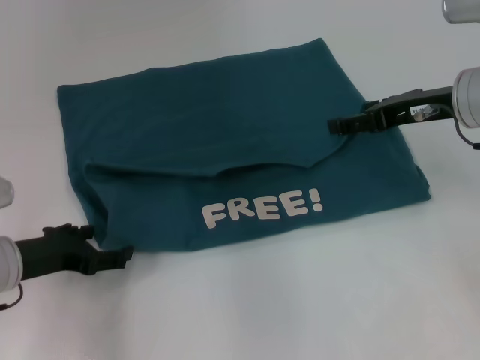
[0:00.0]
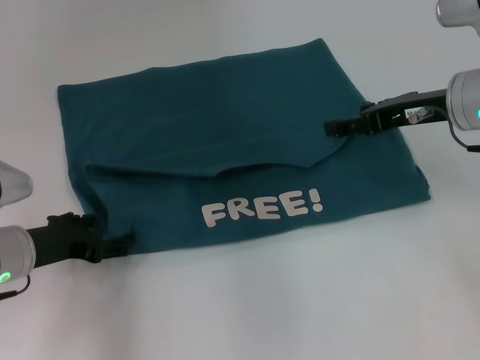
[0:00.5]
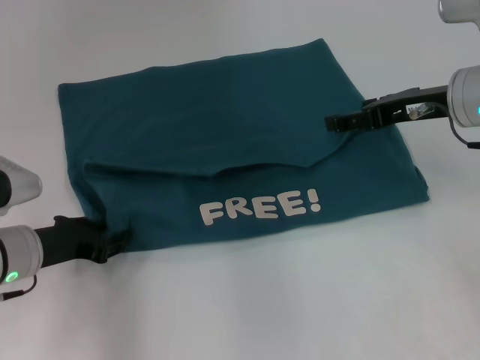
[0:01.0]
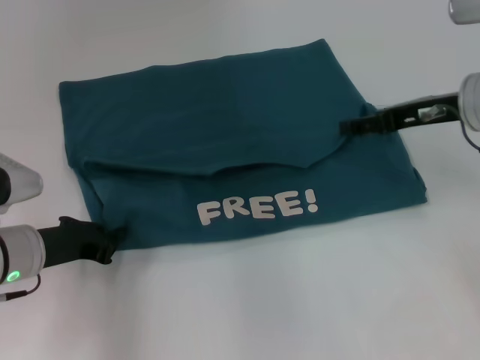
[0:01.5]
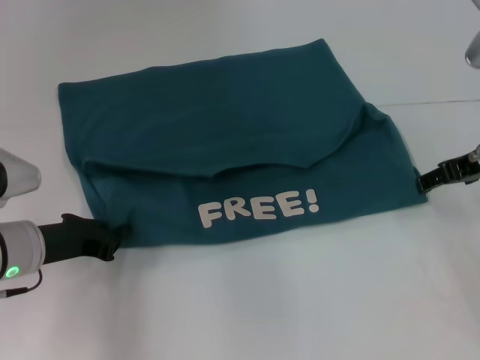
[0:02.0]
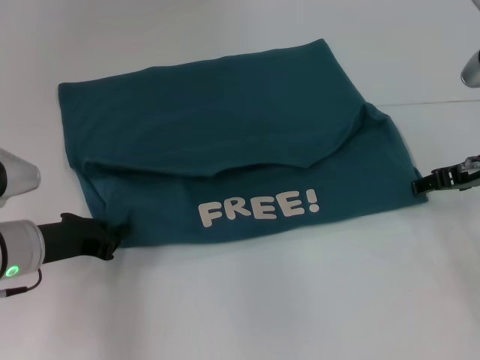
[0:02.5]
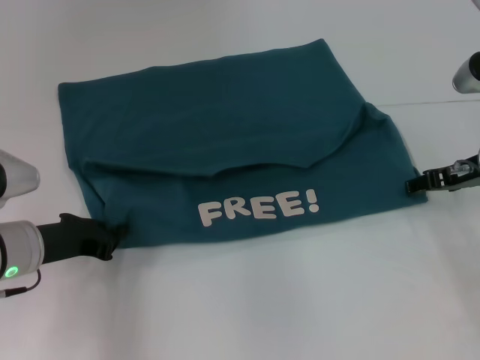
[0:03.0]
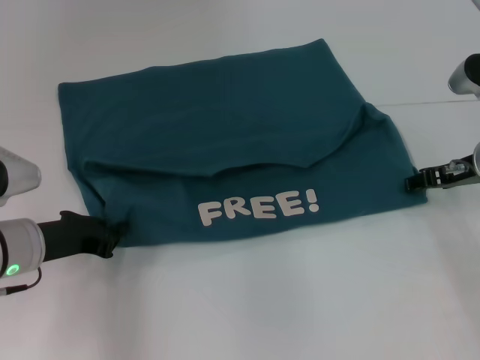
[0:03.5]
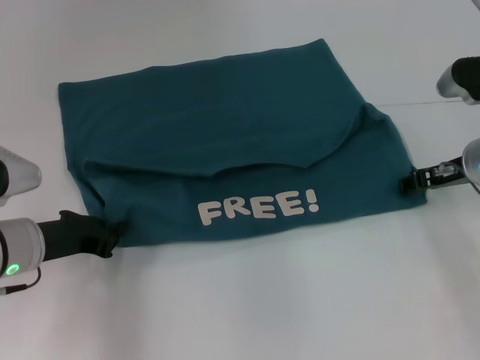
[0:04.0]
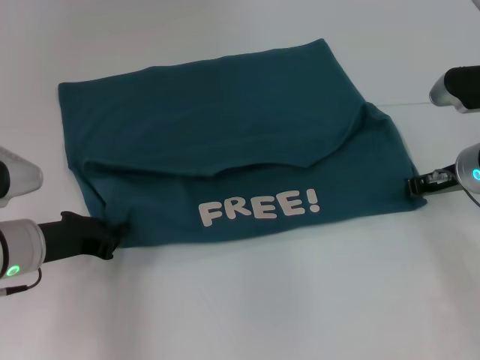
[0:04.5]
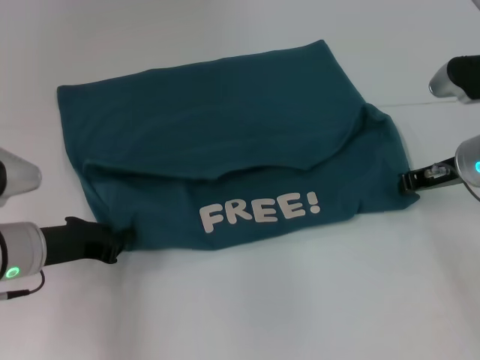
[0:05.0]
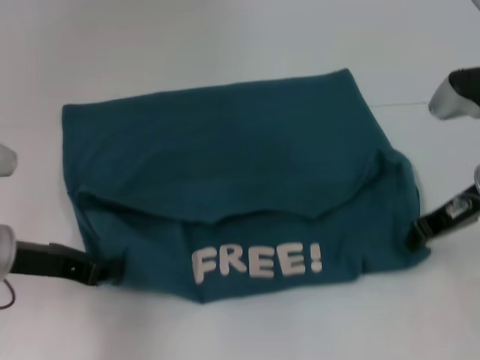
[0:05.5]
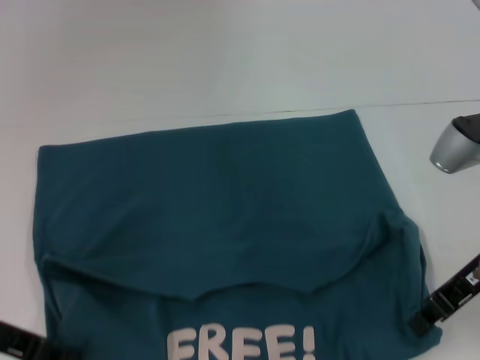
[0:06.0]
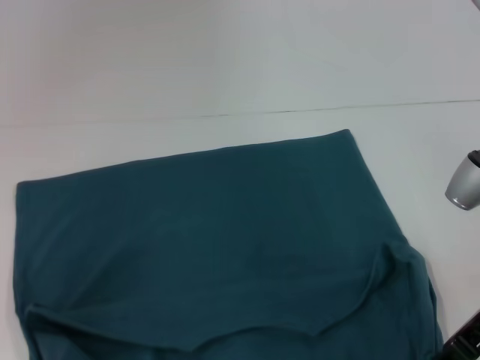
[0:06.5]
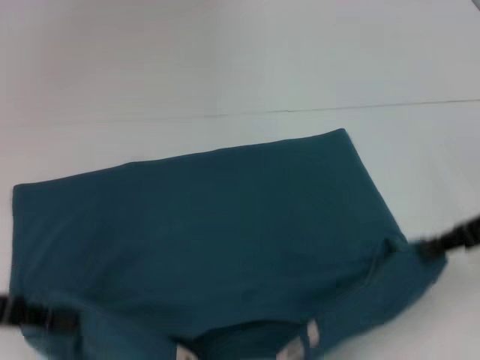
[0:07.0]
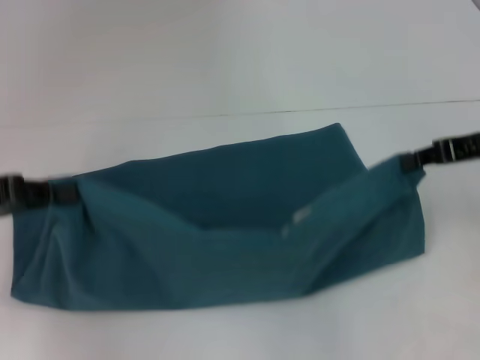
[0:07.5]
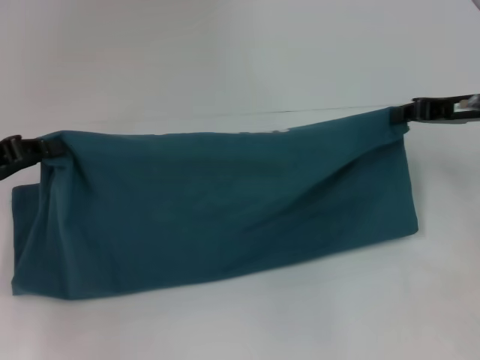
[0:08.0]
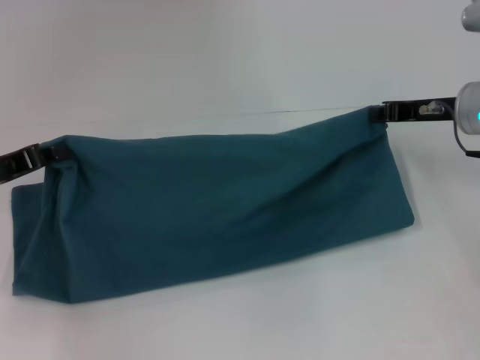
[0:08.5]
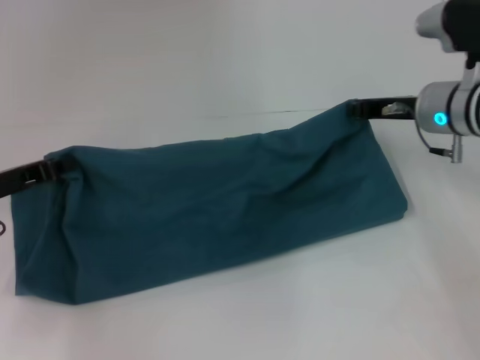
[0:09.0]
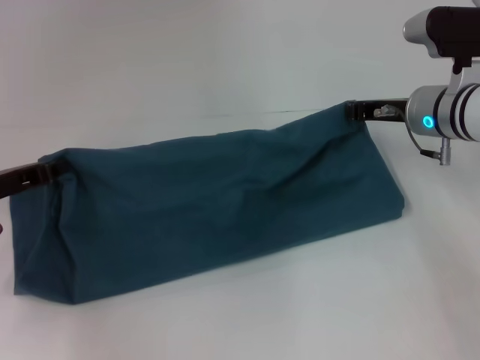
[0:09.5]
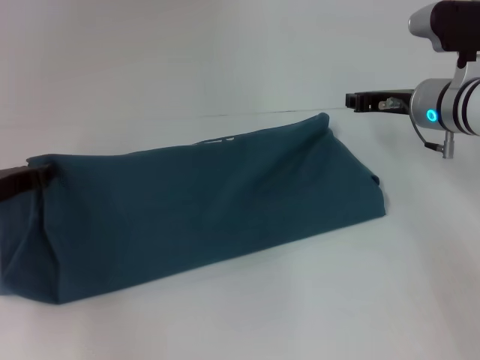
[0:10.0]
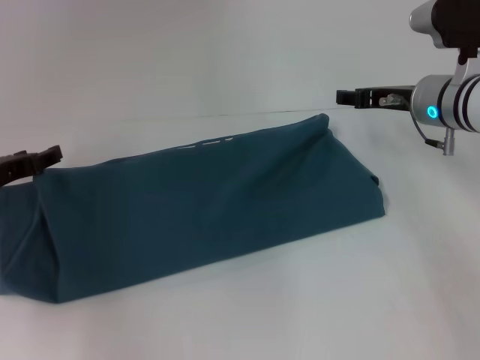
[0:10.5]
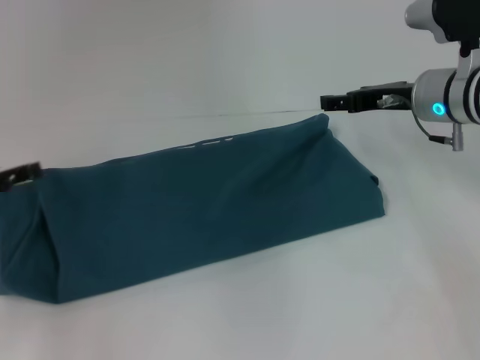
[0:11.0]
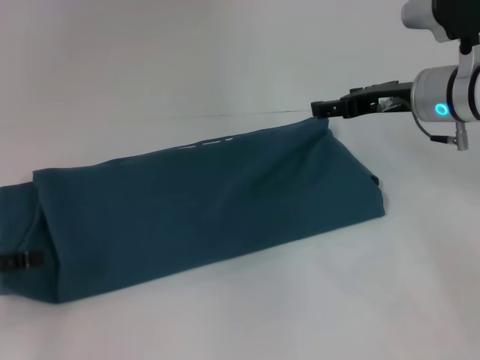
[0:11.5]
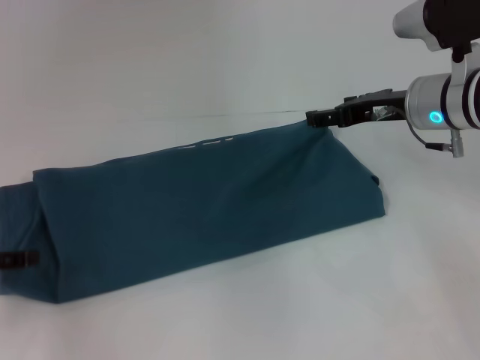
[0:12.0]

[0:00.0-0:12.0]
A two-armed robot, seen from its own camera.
Step, 0:00.0 to 0:06.5: Pull the clothes with your left hand.
Step, 0:00.0 to 0:06.5: Pull the clothes with your right hand.
Step, 0:07.0 to 0:10.5: Fold the clothes to the left.
Step, 0:07.0 to 0:10.5: Fold the clothes to the right.
0:00.0 to 0:02.0: The left gripper closes its fingers.
0:02.0 to 0:04.0: The right gripper travels downward by approximately 5 cm.
0:04.0 to 0:06.0: The left gripper goes approximately 5 cm upward and backward; the right gripper moves backward, approximately 10 cm, and closes up.
0:06.0 to 0:08.0: Both grippers travel together forward, approximately 5 cm.
0:08.0 to 0:10.0: The left gripper shifts roughly 5 cm downward. Meanwhile the right gripper moves to the left, approximately 5 cm.
0:10.0 to 0:12.0: The left gripper shifts some 10 cm backward and to the left, and opens up. The right gripper opens.

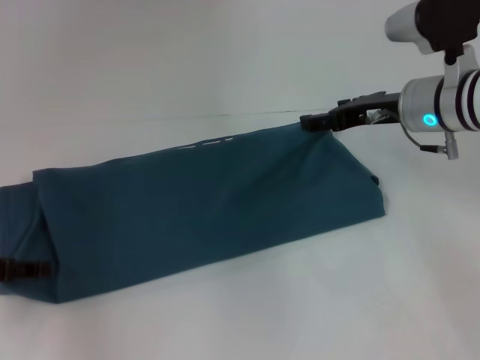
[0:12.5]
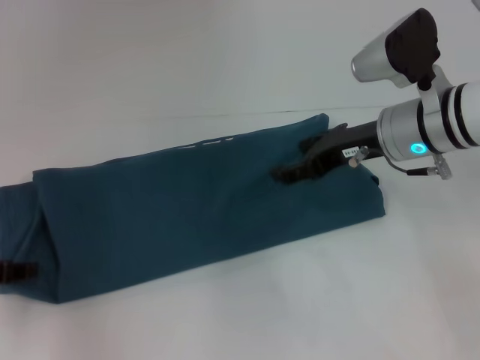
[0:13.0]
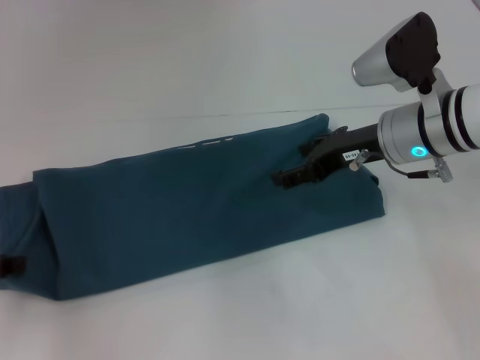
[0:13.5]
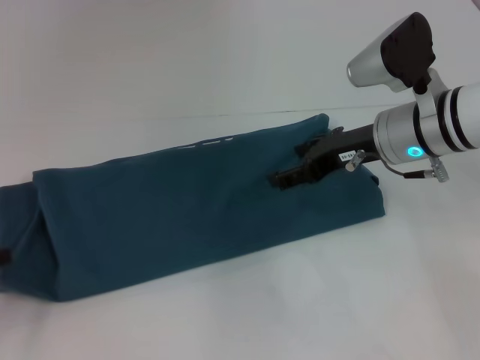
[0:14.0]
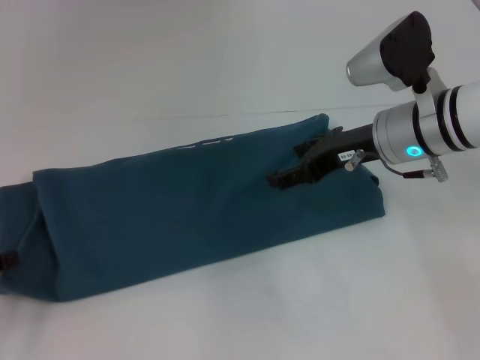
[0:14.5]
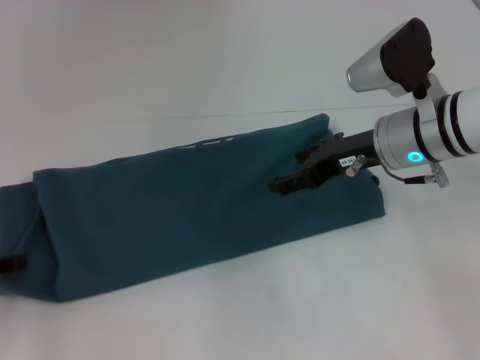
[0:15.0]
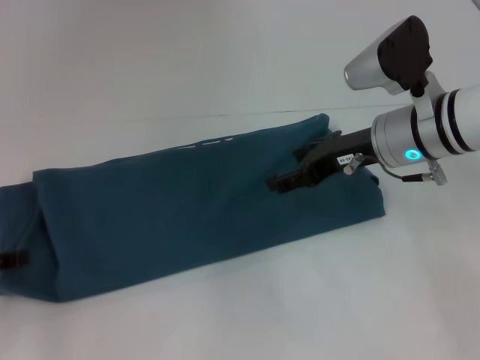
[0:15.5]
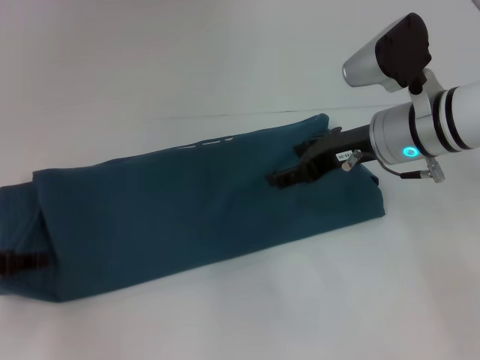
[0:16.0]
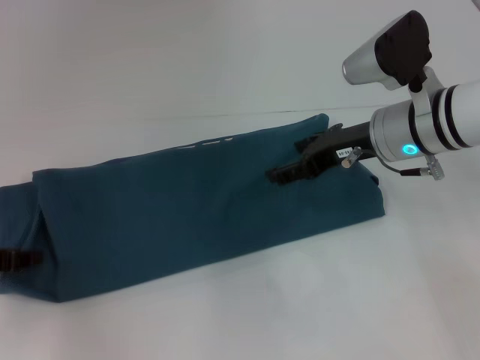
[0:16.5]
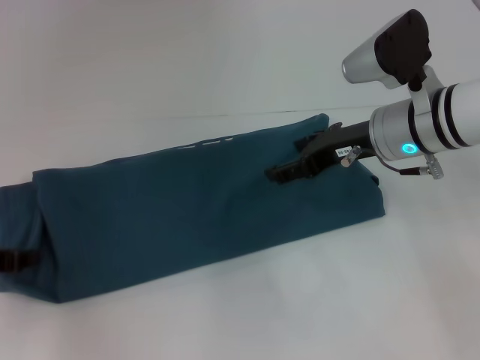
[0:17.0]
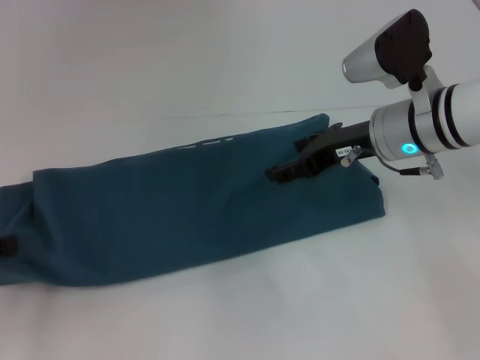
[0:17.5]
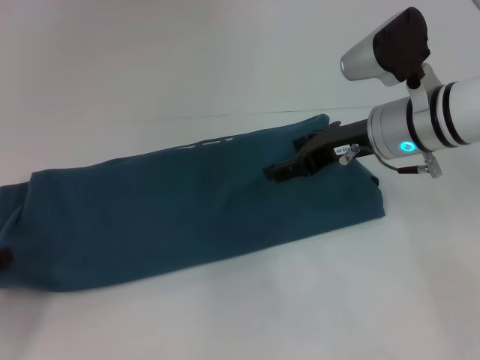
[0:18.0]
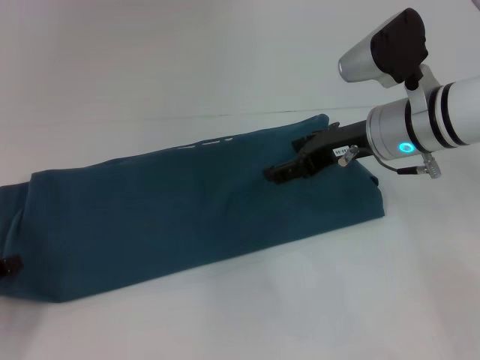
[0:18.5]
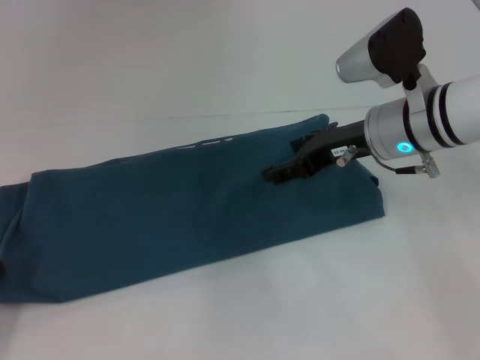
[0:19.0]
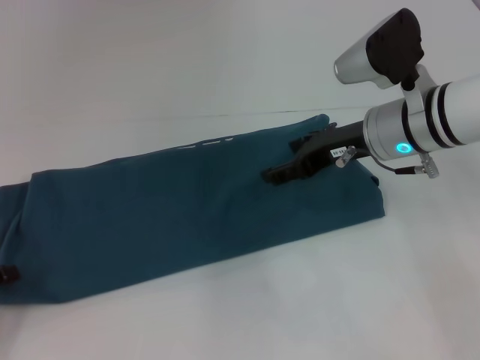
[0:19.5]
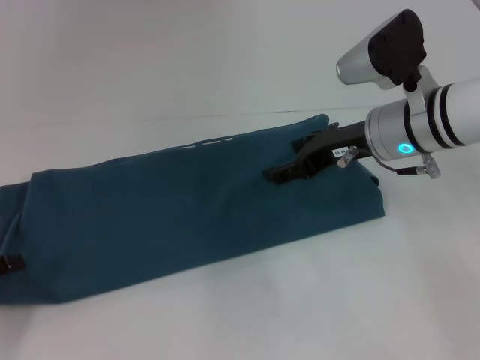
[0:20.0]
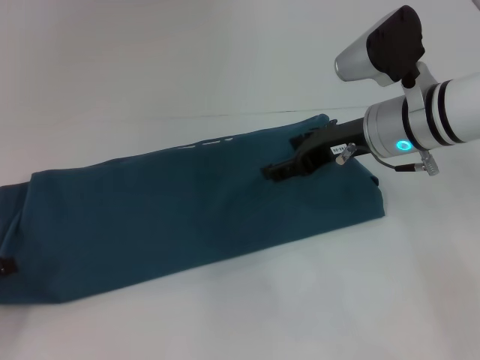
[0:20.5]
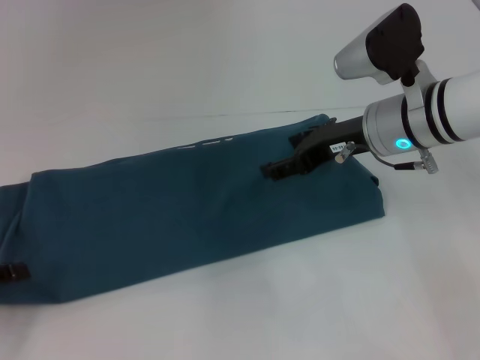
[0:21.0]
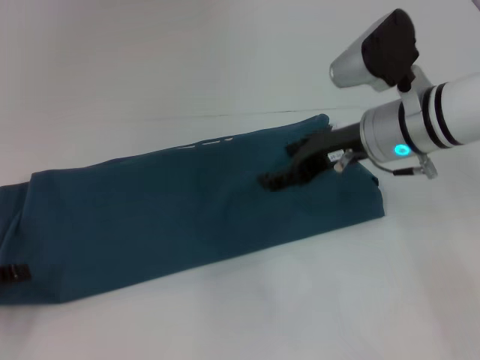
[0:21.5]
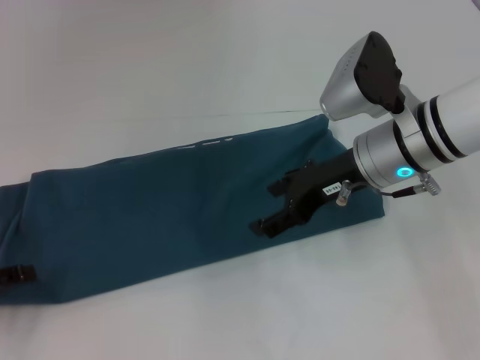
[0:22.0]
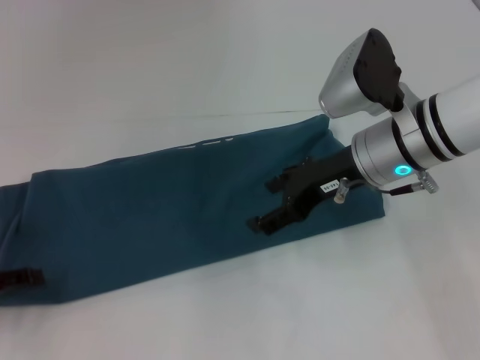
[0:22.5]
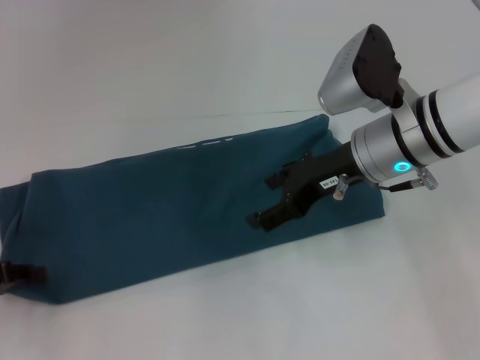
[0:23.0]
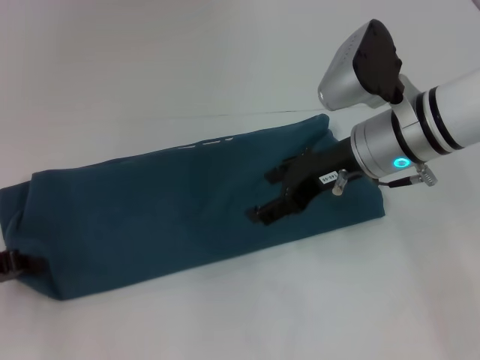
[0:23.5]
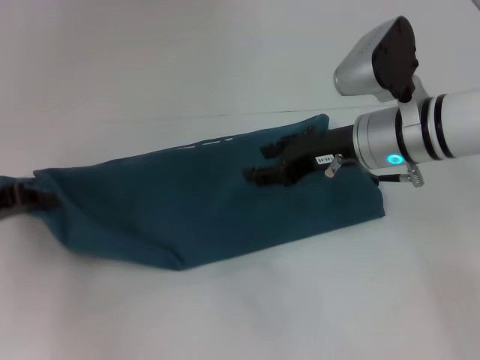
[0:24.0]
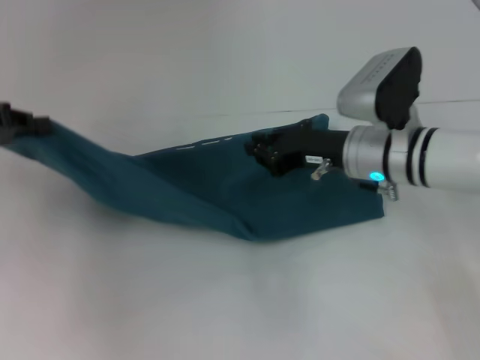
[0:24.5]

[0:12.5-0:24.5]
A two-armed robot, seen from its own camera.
0:12.5 to 0:14.5: The left gripper closes up.
0:16.5 to 0:18.5: The left gripper is displaced backward by about 5 cm, and closes up.
0:20.5 to 0:22.5: The grippers make only small movements.
0:22.5 to 0:24.5: The left gripper goes approximately 15 cm upward and forward, and closes up; the right gripper heads downward, covering approximately 5 cm, and closes up.

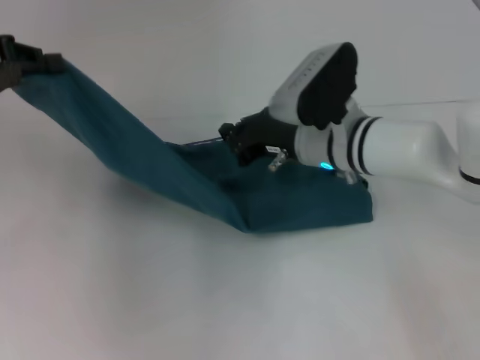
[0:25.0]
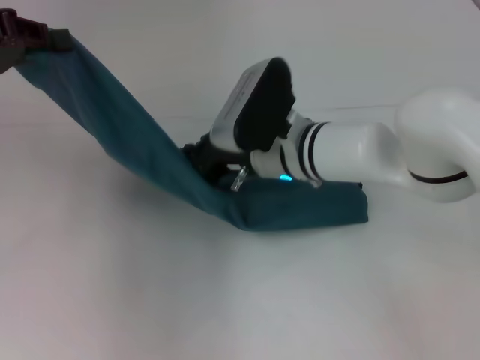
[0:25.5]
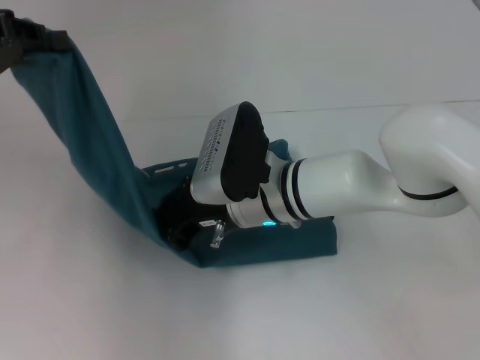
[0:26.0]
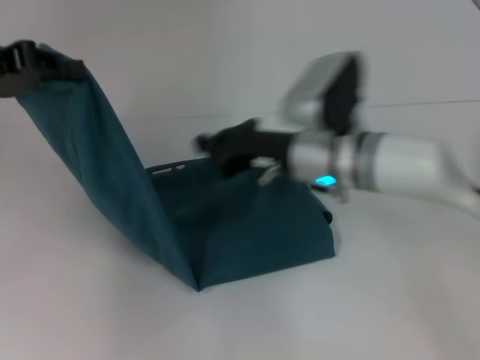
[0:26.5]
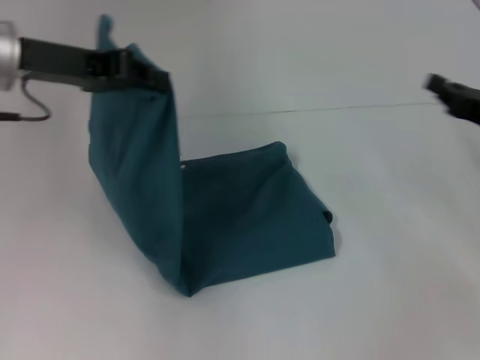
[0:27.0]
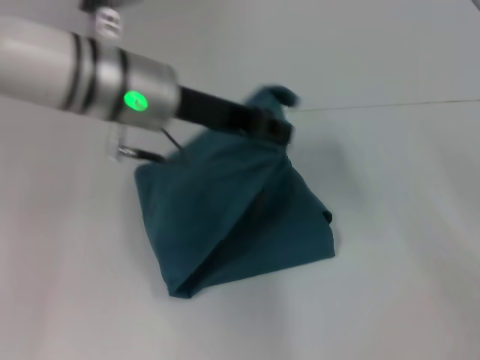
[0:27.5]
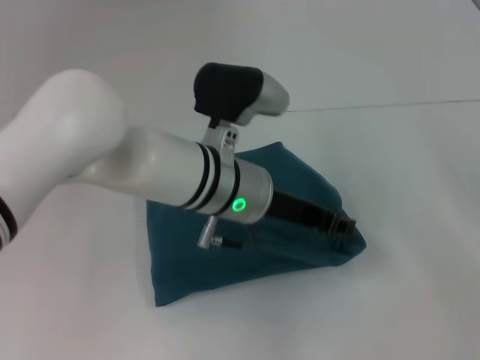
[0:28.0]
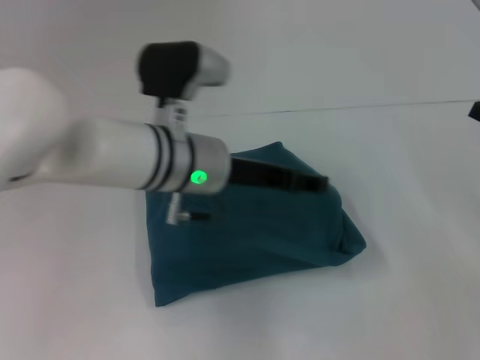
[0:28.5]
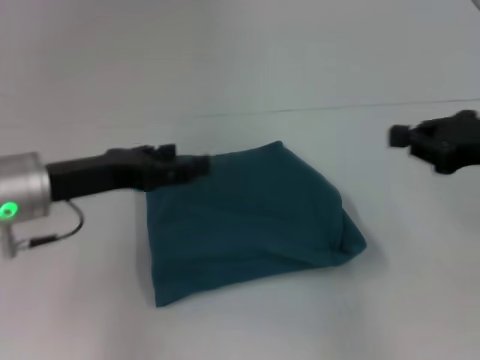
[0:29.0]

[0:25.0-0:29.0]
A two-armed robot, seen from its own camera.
Step, 0:26.5 to 0:28.0: Fold the clothes to the left.
0:25.0 to 0:27.0: The right gripper goes approximately 20 cm to the right; the left gripper travels to the right by approximately 10 cm.
0:27.0 to 0:29.0: The left gripper goes some 10 cm downward and backward, moves approximately 20 cm to the right and comes back, and opens its fingers, while the right gripper heads upward, covering roughly 5 cm, and moves some 5 cm to the right and comes back.
